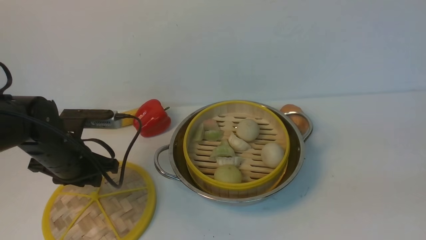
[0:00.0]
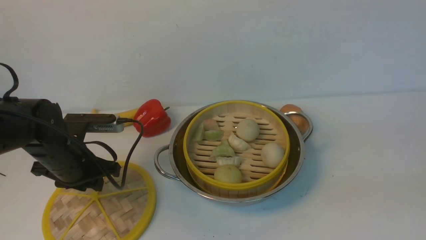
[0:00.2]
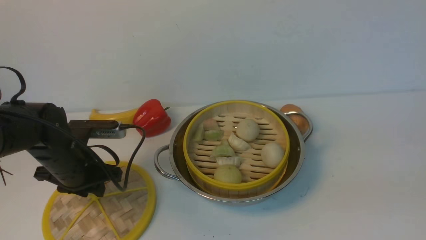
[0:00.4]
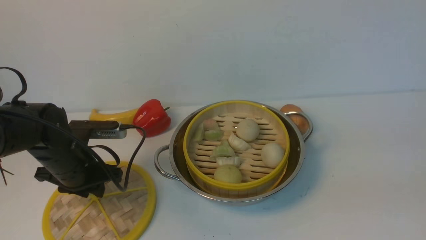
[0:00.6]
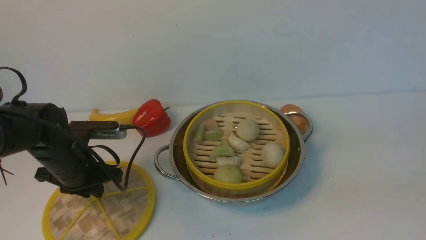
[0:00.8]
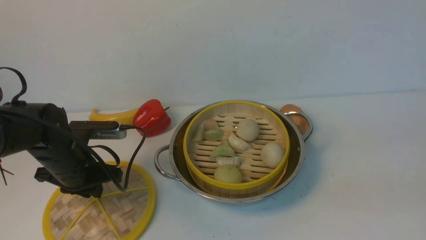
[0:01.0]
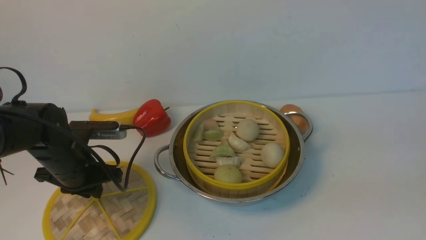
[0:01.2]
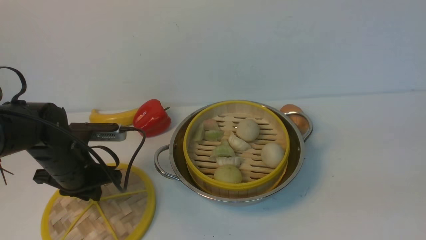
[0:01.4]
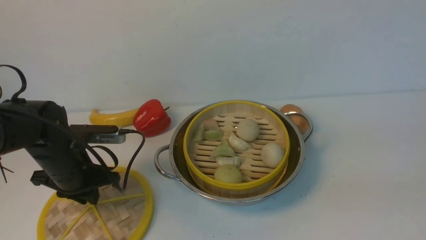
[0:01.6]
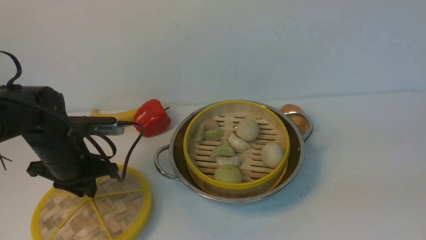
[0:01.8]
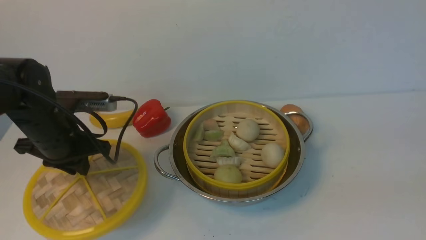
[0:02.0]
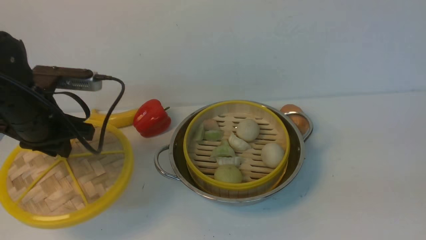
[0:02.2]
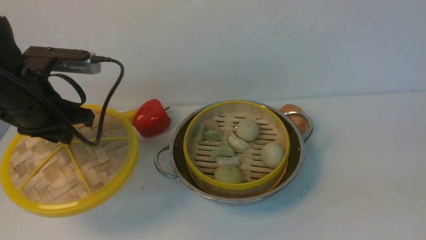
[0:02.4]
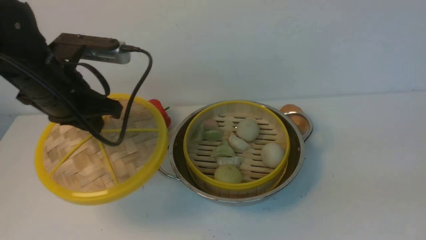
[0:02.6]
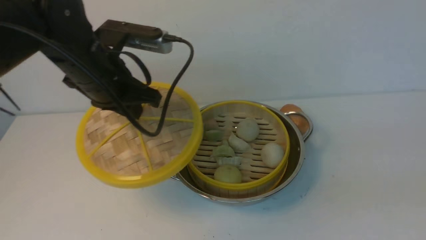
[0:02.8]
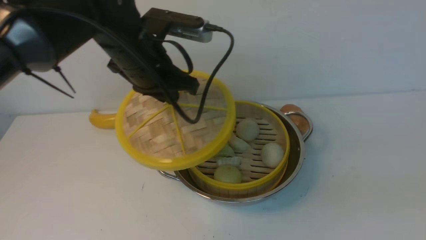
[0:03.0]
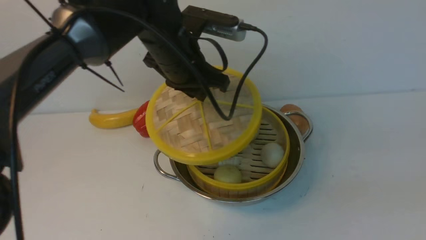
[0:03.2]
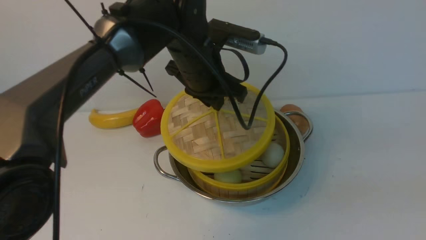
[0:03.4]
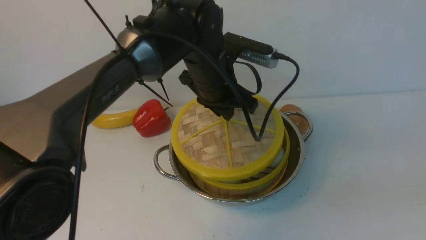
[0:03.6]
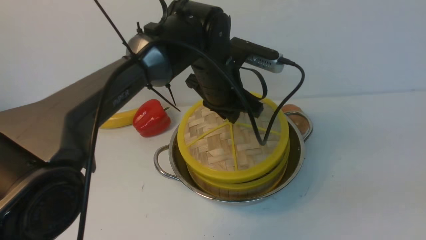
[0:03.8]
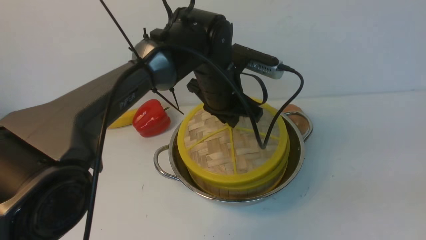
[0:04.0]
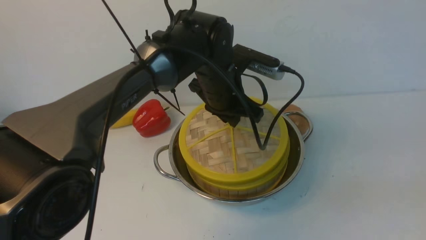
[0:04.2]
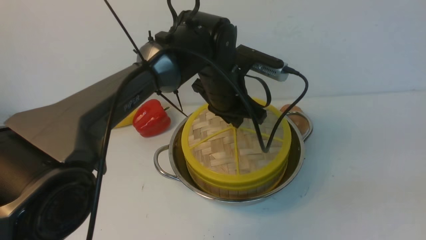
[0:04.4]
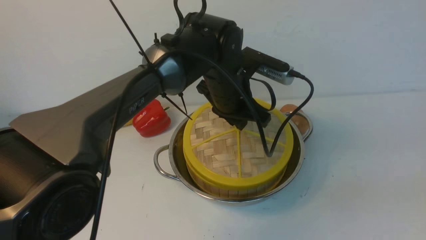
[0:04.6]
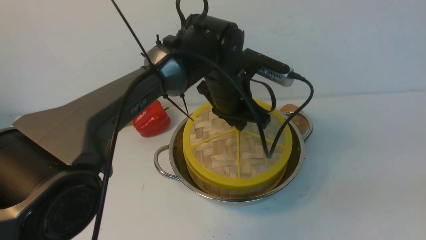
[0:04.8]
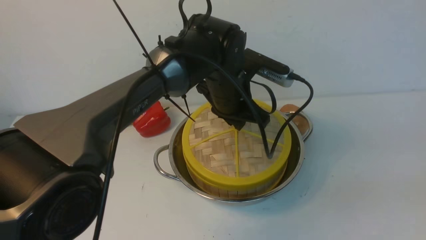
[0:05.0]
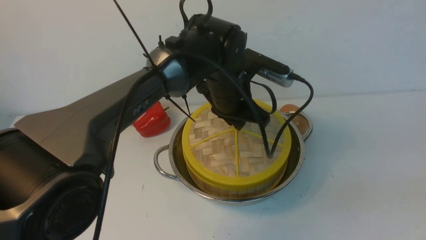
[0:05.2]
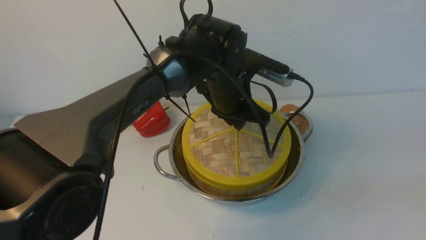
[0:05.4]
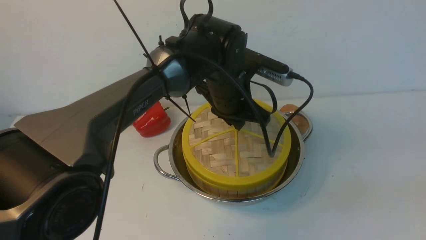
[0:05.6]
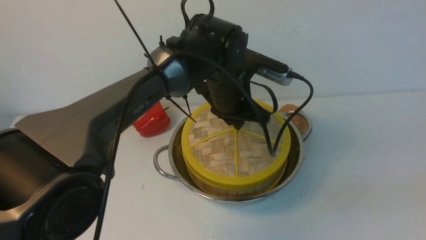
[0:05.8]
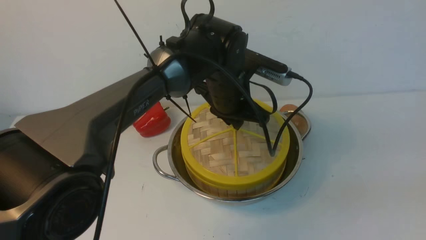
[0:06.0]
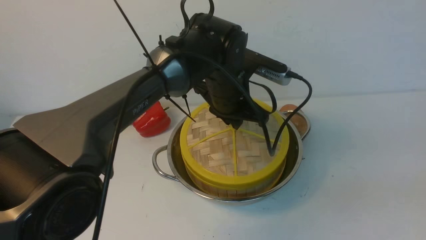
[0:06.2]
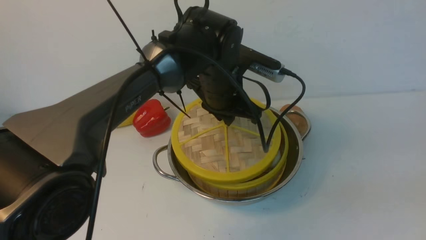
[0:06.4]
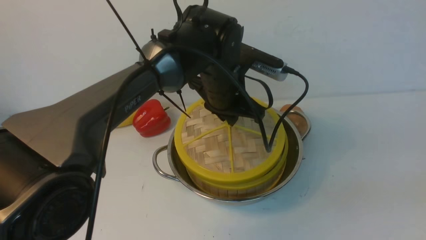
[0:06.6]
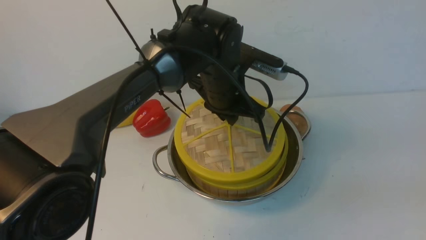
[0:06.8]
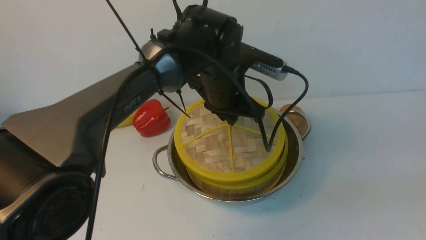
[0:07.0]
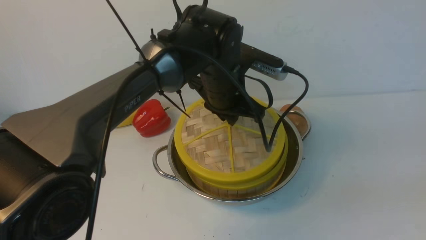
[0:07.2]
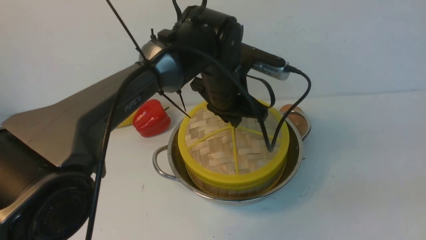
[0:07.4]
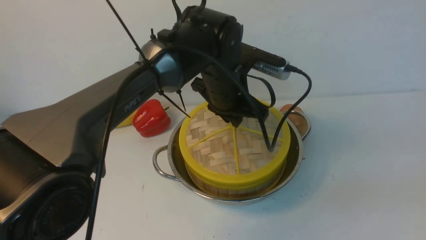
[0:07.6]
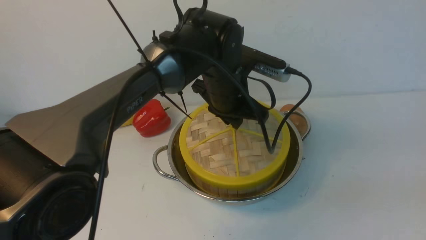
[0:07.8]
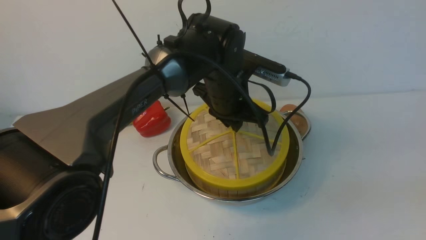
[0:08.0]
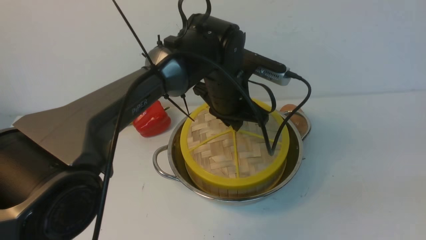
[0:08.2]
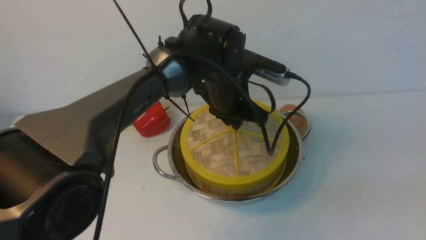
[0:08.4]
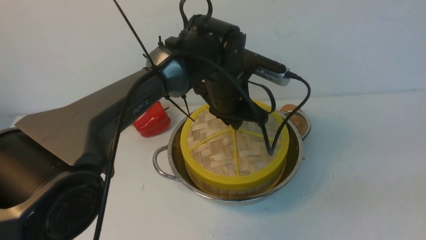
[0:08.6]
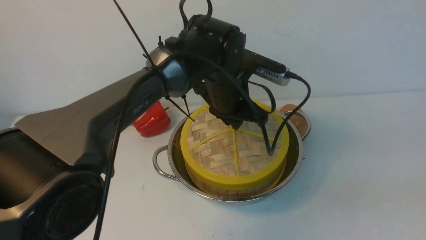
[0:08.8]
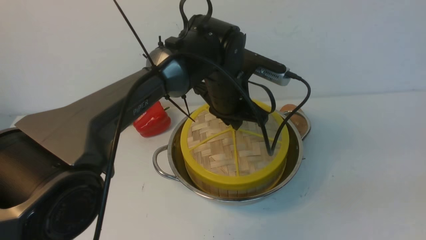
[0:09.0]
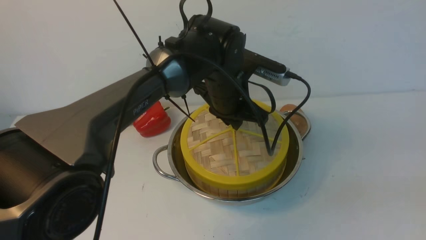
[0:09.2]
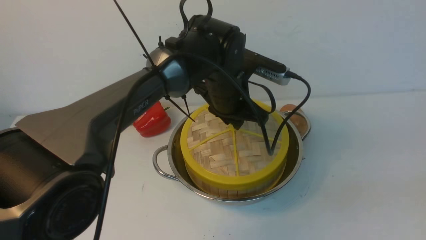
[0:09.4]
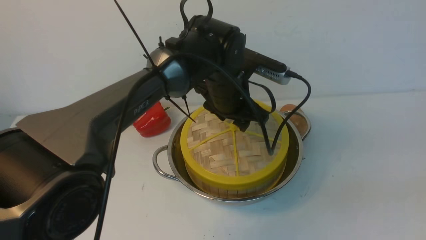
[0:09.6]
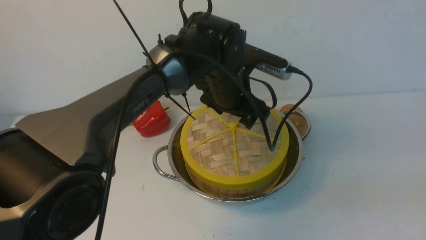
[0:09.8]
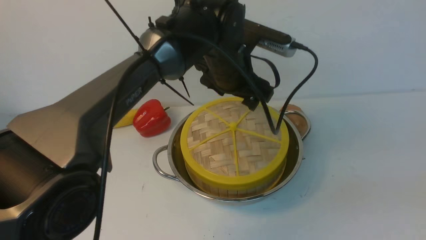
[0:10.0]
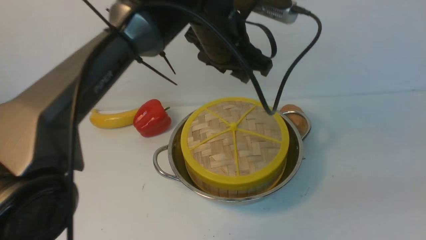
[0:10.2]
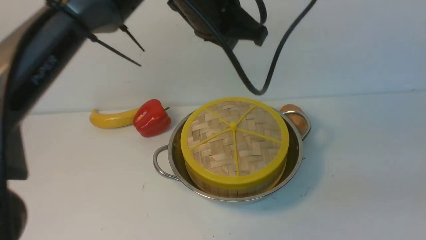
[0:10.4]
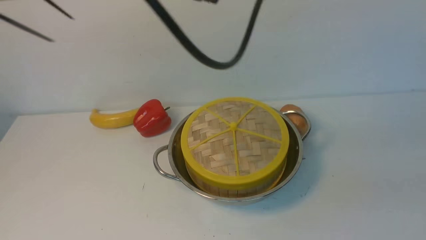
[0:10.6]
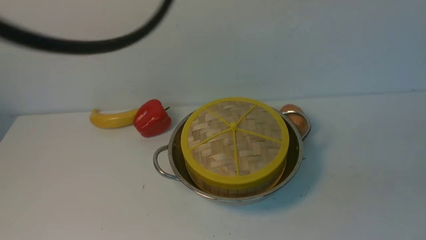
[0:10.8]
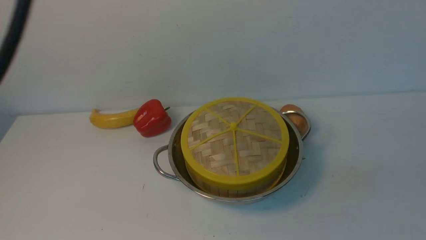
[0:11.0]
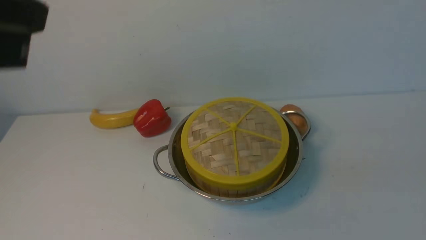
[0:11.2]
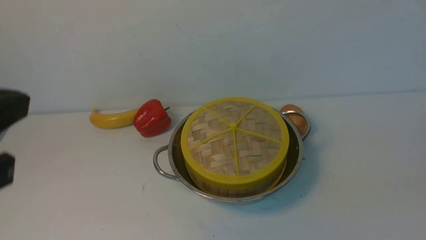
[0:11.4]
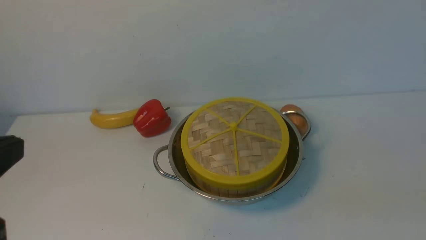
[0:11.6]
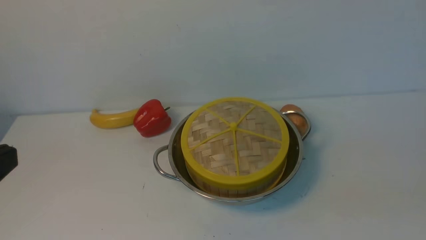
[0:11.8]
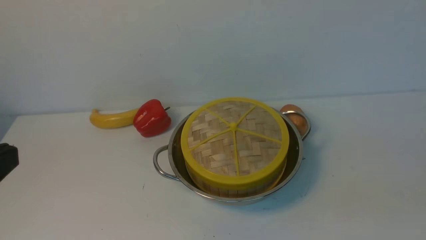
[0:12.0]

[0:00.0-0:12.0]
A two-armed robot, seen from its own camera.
Task of the whole recording: place the steamer in the pot on the white table, and put the lid on the steamer.
Step, 0:00.0 to 0:02.2: use the left arm to lift the lid of the steamer.
Step, 0:02.4 to 0:10.2: use the left arm to place the steamer lid on the steamer.
0:00.0 to 0:01.6: The left gripper closes its fingers.
0:01.6 to 0:03.0: The left gripper is displaced upward and to the right by about 20 cm.
0:03.0 to 0:04.4: The left gripper goes roughly 15 cm to the right and downward.
0:04.4 to 0:06.0: The two grippers keep their place.
0:06.0 to 0:09.0: There are only small adjustments of the grippers.
0:09.0 to 0:10.4: The left gripper travels upward by approximately 15 cm, and opens, then closes again.
0:10.4 to 0:12.0: The left gripper heads backward and to the left, covering approximately 35 cm, and closes up.

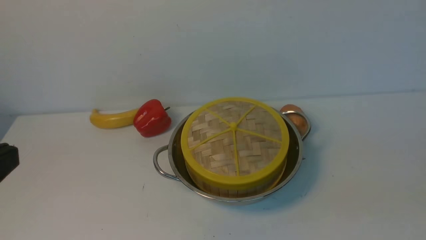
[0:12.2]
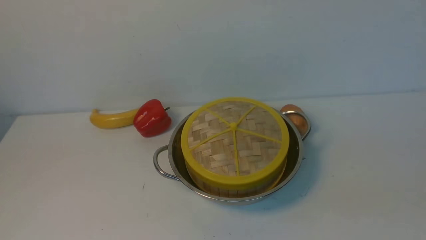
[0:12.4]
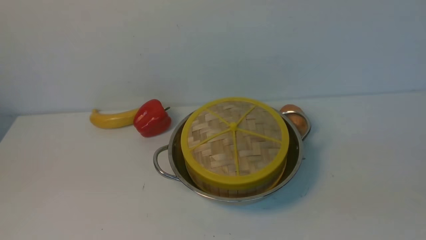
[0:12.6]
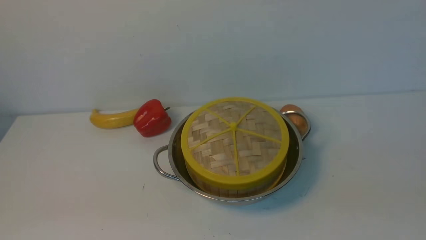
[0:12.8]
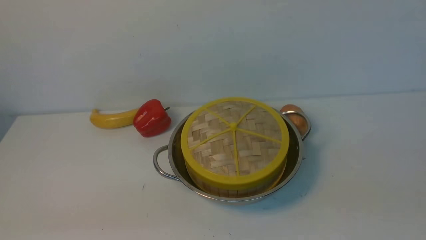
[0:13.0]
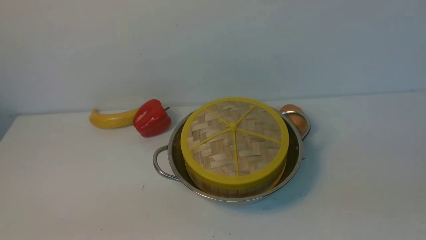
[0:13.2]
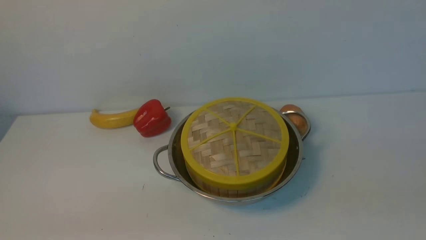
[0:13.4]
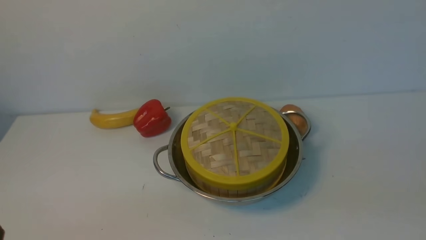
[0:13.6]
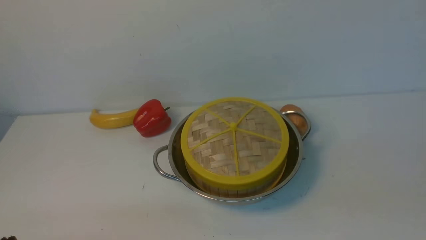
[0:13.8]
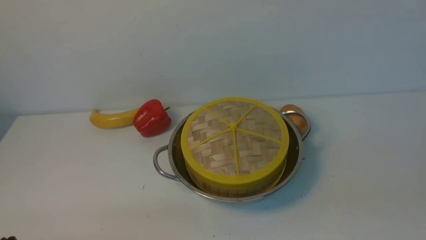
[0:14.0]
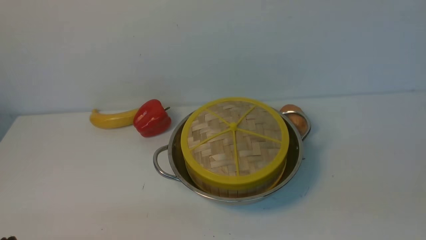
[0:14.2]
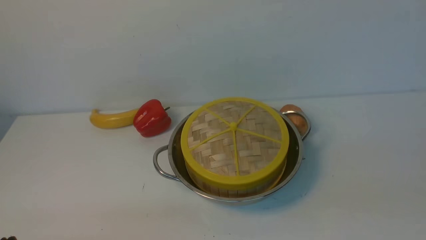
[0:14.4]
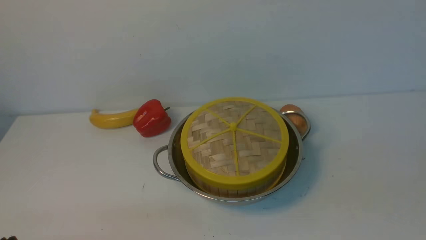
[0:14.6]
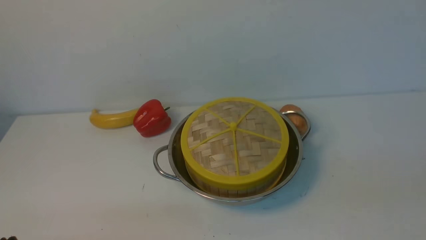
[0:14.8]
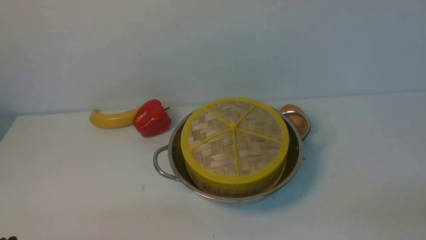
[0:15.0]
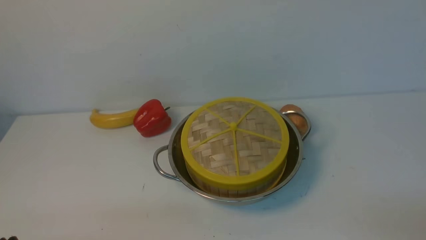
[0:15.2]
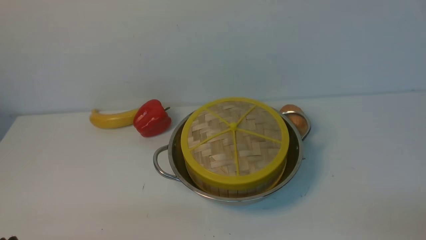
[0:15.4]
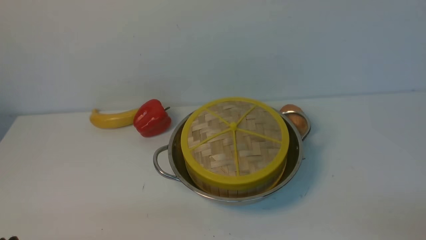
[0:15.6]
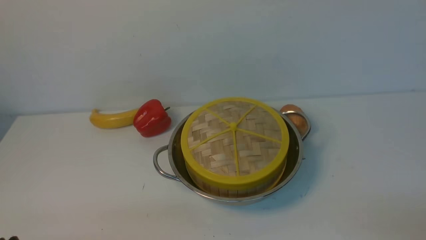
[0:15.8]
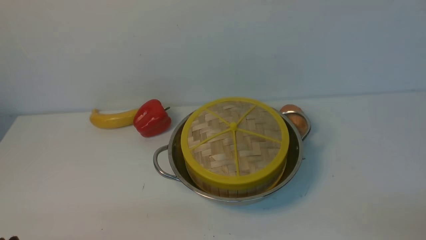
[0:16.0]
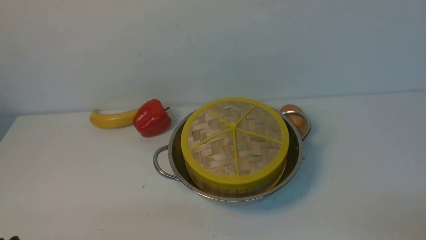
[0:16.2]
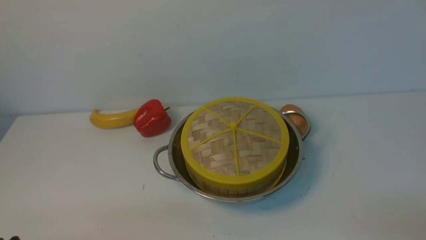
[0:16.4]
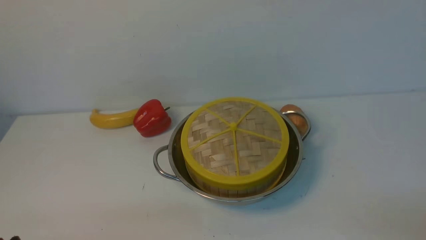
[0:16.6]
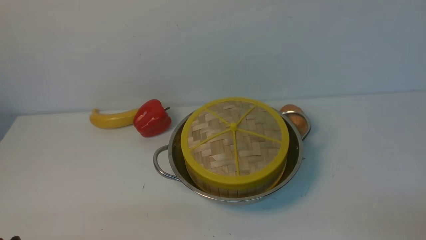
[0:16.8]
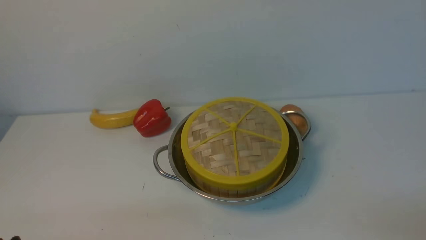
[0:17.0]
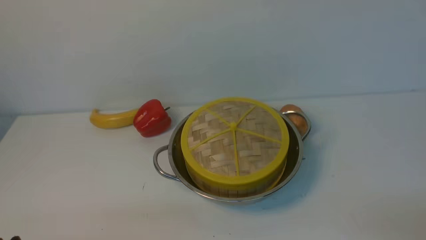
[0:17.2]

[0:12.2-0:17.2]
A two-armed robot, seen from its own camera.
Task of the whole recording: place the steamer in the pot on the white table, and put the lid on the steamer.
0:12.2 to 0:13.8: The left gripper moves downward, roughly 15 cm.
0:15.6 to 0:17.2: Neither gripper changes place.
